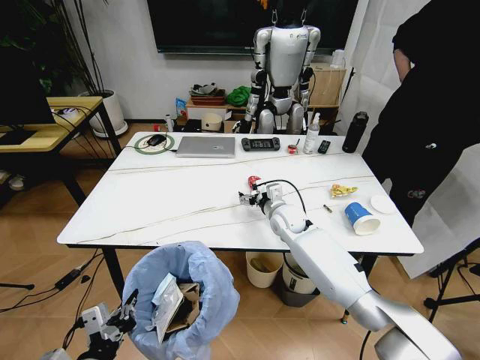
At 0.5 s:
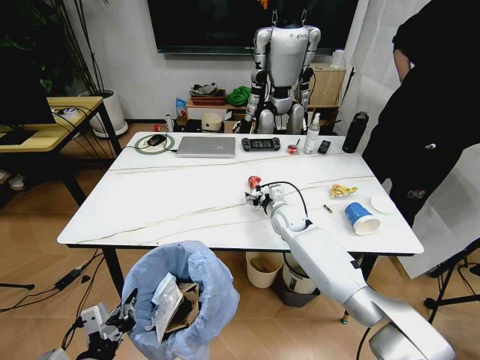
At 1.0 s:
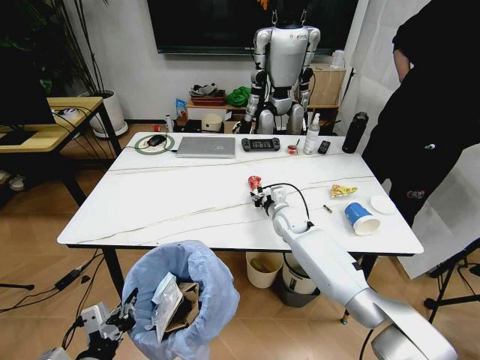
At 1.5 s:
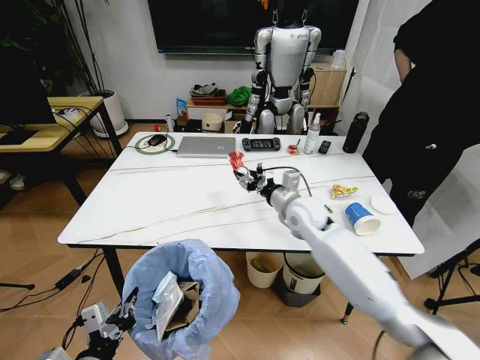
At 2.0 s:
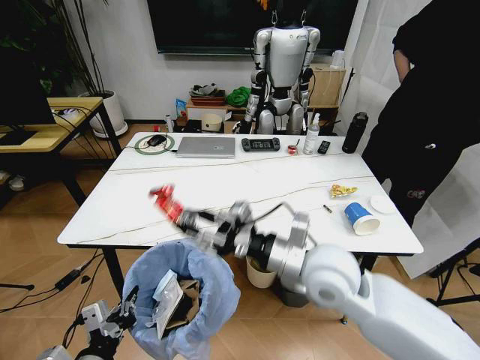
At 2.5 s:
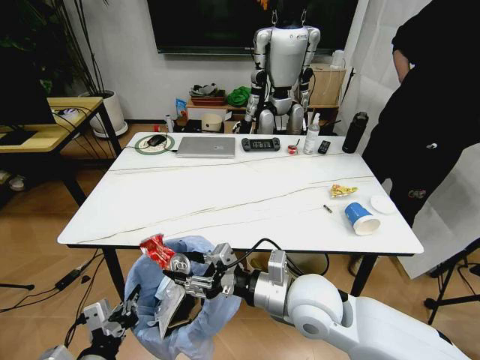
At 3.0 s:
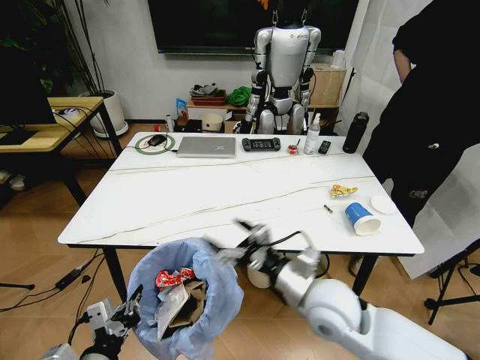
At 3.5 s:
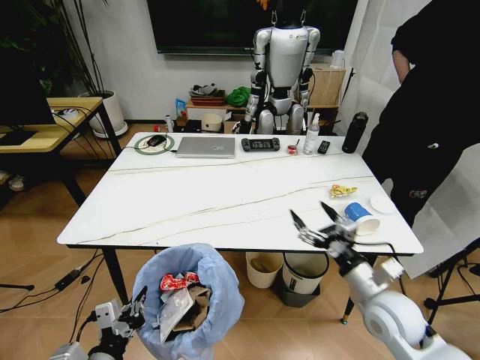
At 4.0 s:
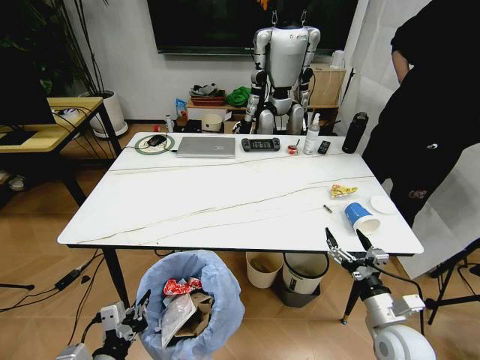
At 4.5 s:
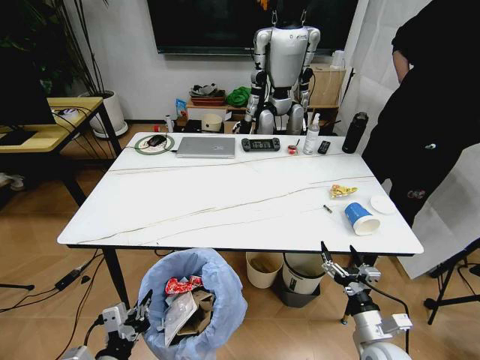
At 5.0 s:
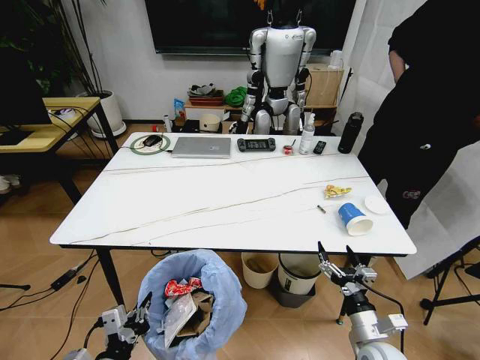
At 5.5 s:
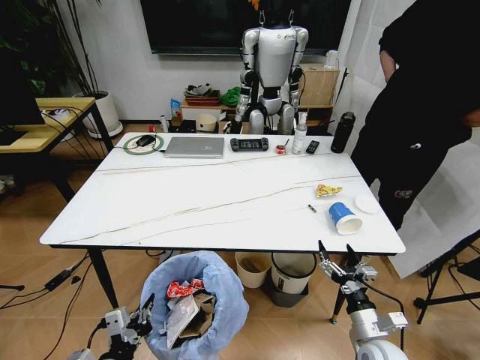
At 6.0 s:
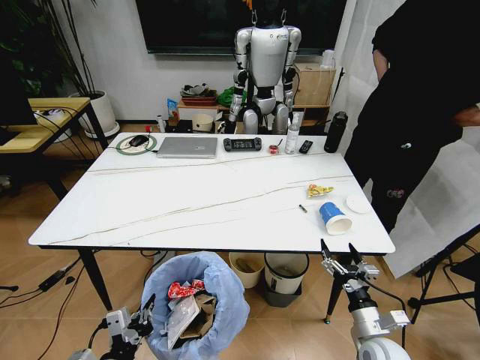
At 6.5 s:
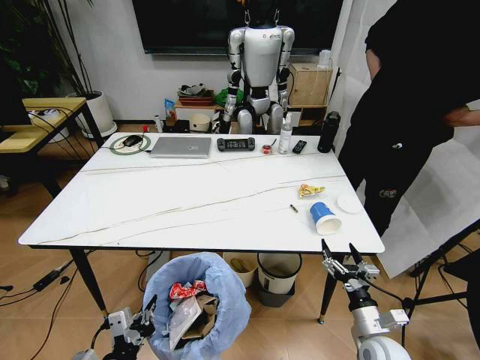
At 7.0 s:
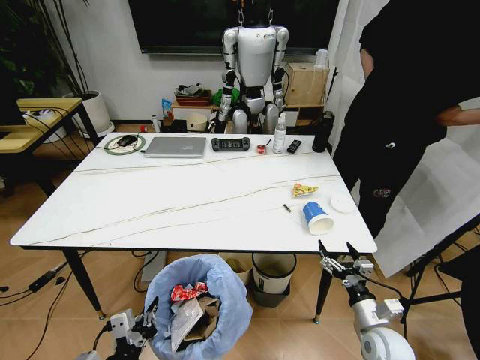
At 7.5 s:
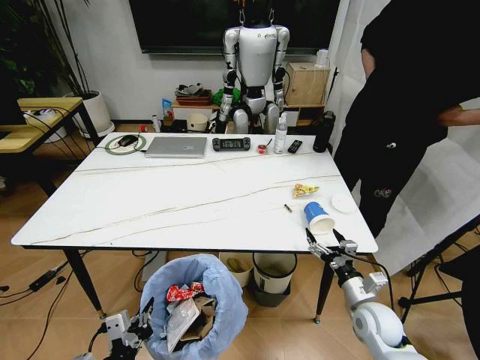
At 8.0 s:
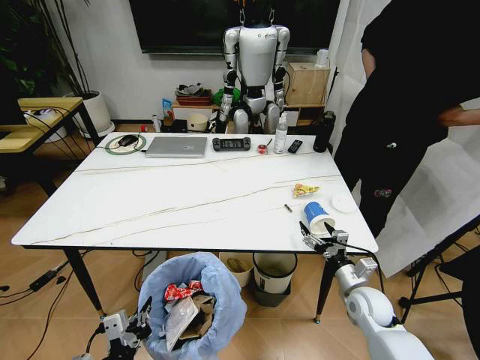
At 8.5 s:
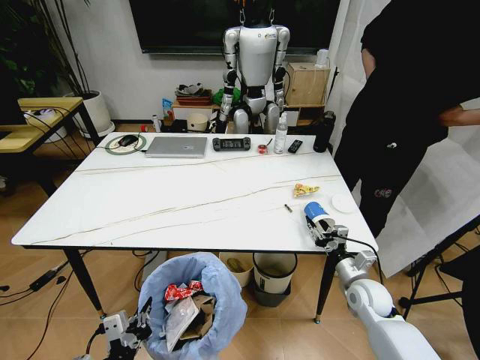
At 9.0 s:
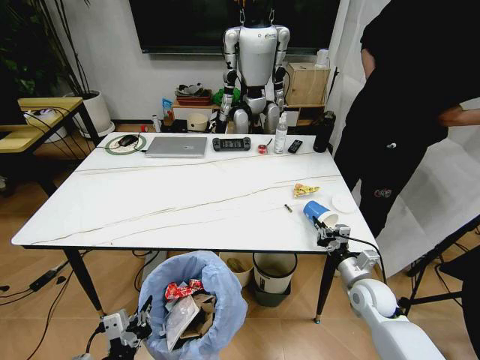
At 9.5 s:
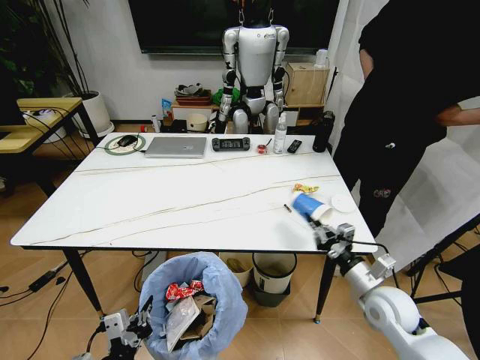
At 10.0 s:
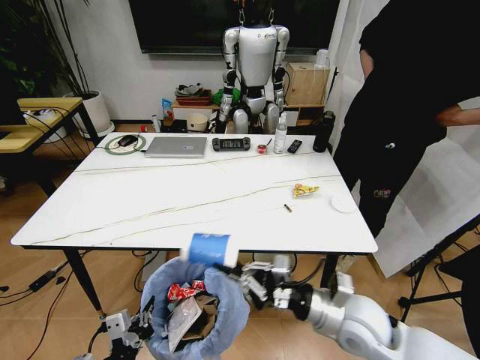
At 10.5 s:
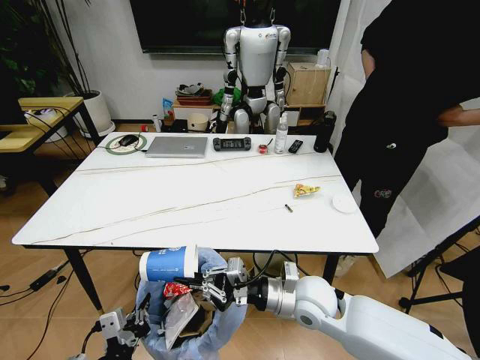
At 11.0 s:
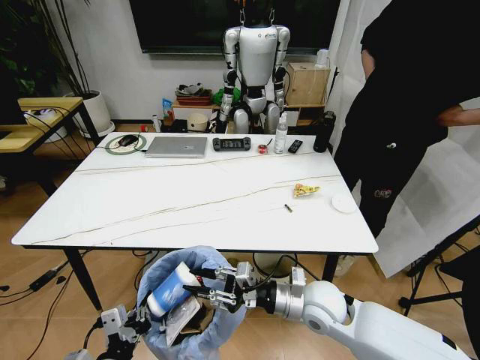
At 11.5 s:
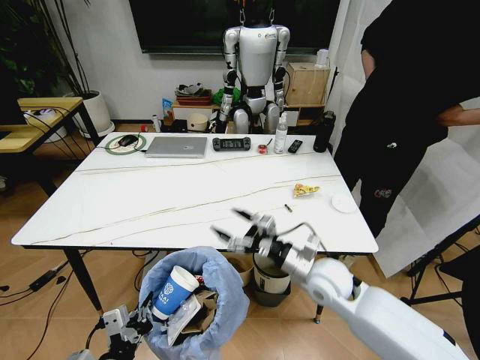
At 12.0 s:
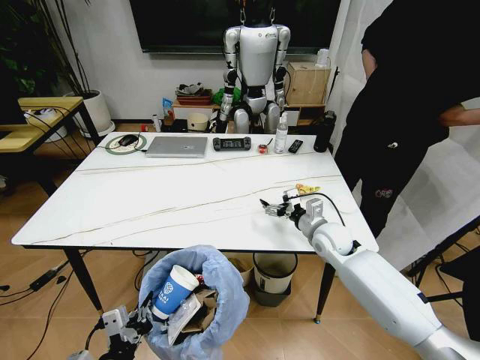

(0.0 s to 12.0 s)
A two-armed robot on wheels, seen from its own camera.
Task of the whole recording: Pick up the trash bin and place the trash from the table into it.
0.0 s - 2.0 s: The right gripper goes about 25 cm backward and upward, and closes up.
2.0 s - 4.0 s: The right gripper travels downward, to the right and backward by approximately 30 cm, and opens.
4.0 s - 6.0 s: The right gripper heads downward, covering roughly 5 cm.
6.0 s - 8.0 s: The right gripper heads forward, covering roughly 10 cm.
8.0 s - 10.0 s: The right gripper travels upward, to the left and backward by about 20 cm, and closes its fingers.
10.0 s - 12.0 s: The right gripper goes some 20 cm forward, and opens its fingers.

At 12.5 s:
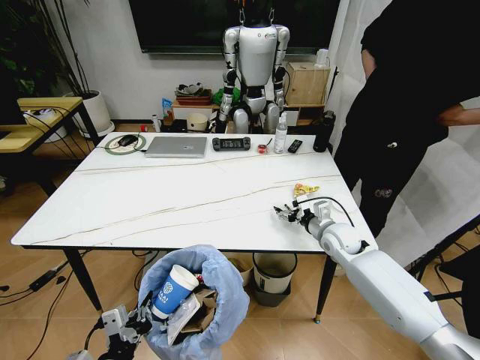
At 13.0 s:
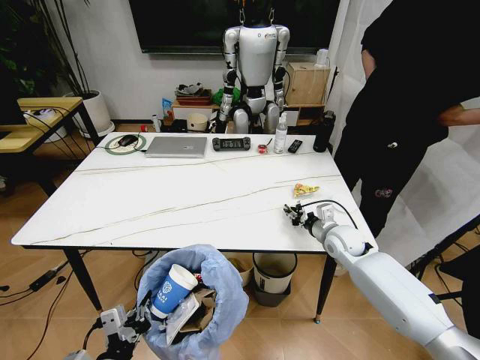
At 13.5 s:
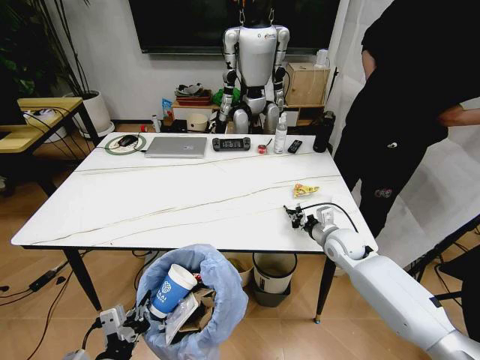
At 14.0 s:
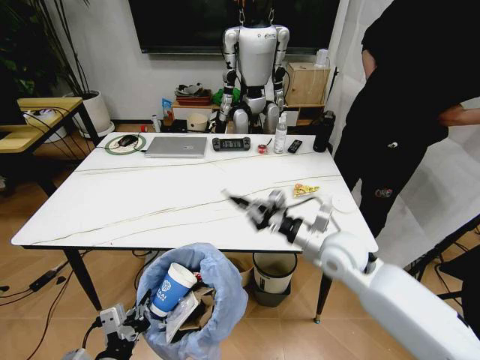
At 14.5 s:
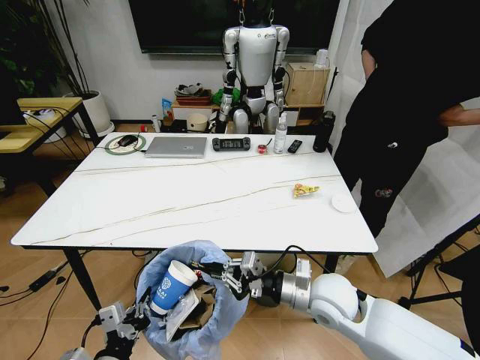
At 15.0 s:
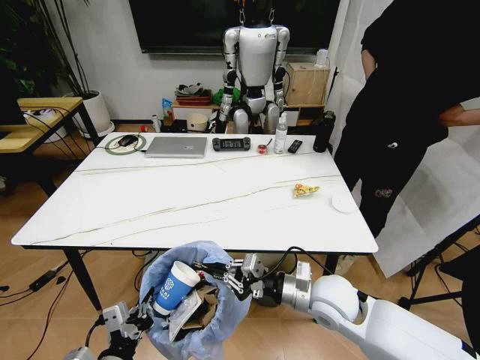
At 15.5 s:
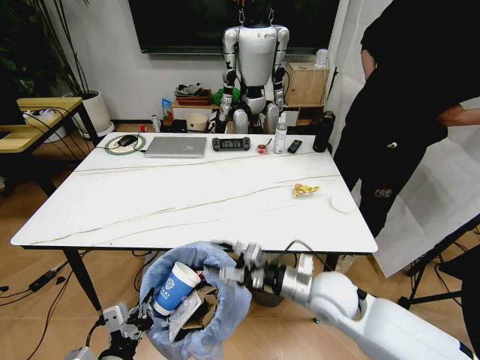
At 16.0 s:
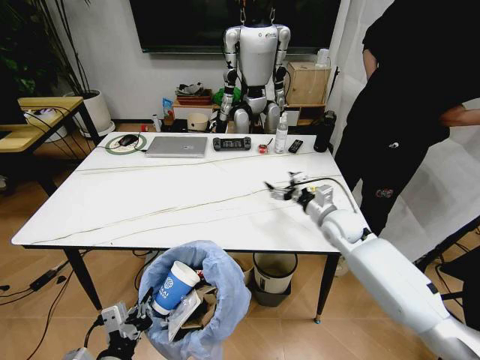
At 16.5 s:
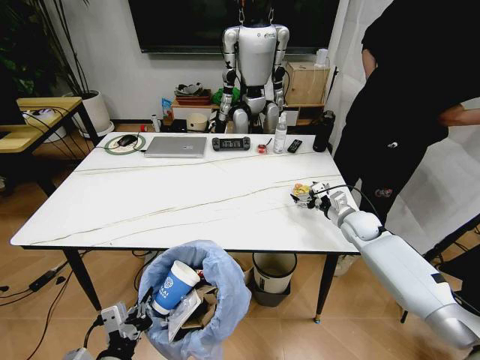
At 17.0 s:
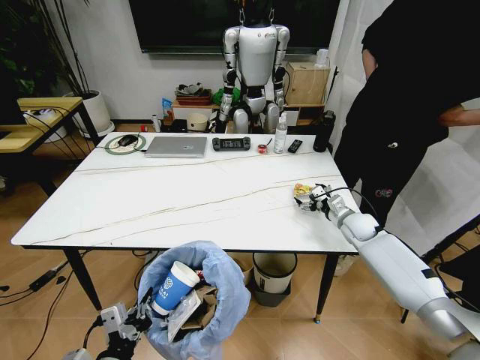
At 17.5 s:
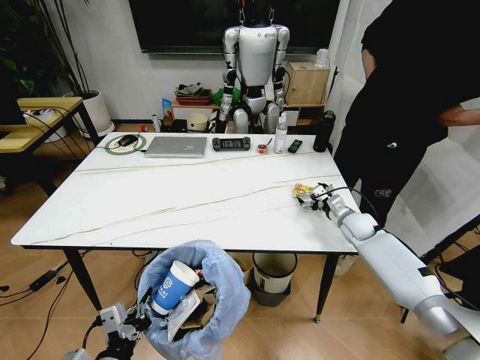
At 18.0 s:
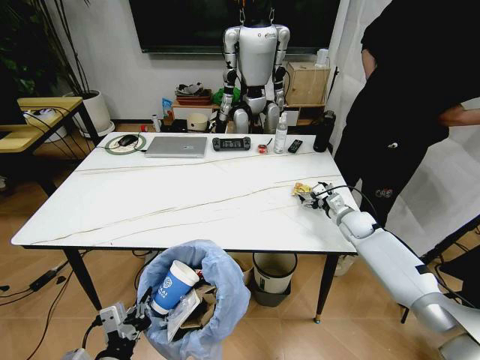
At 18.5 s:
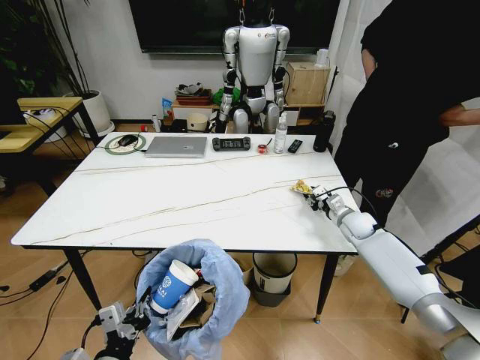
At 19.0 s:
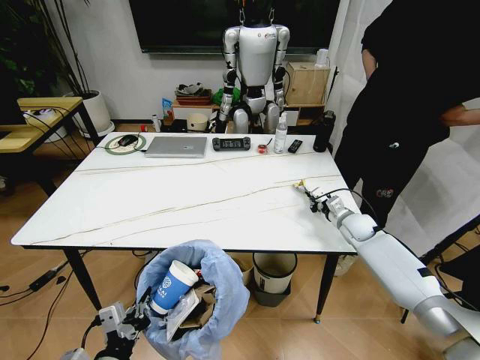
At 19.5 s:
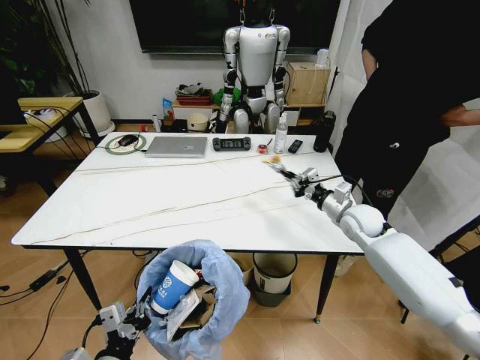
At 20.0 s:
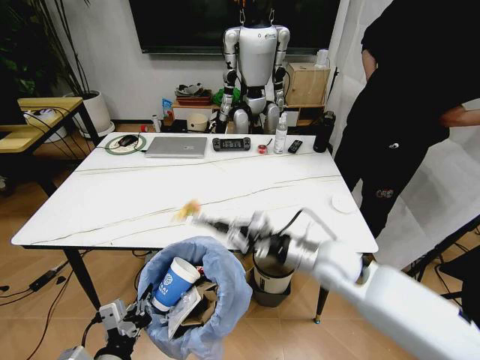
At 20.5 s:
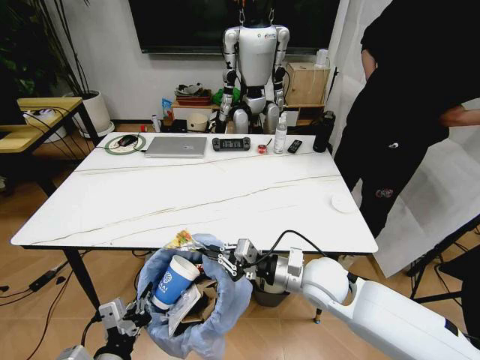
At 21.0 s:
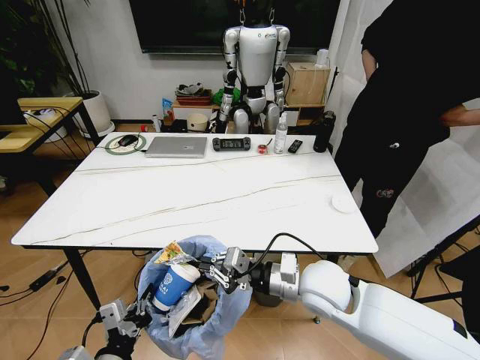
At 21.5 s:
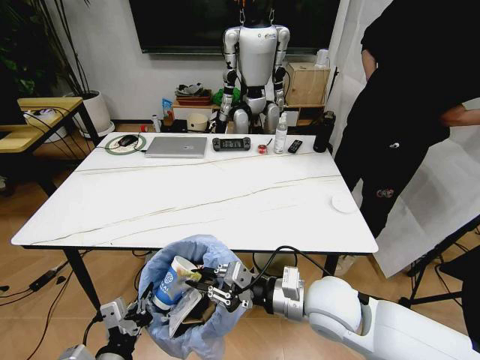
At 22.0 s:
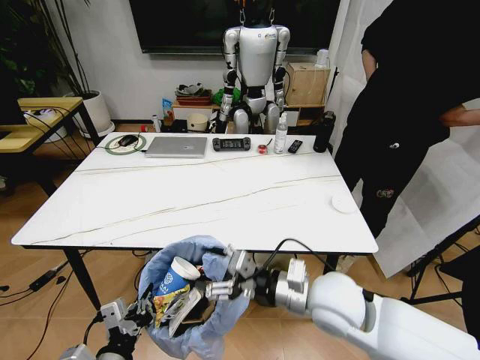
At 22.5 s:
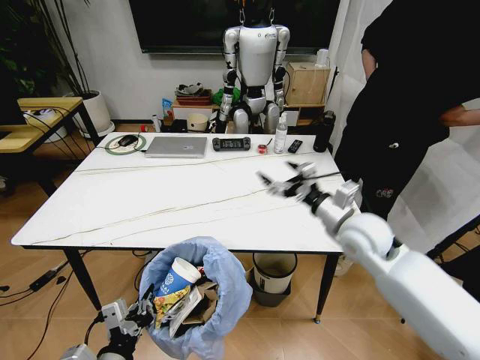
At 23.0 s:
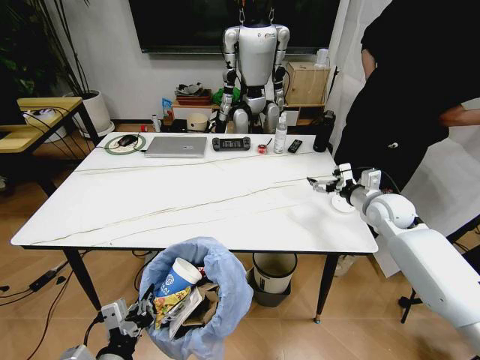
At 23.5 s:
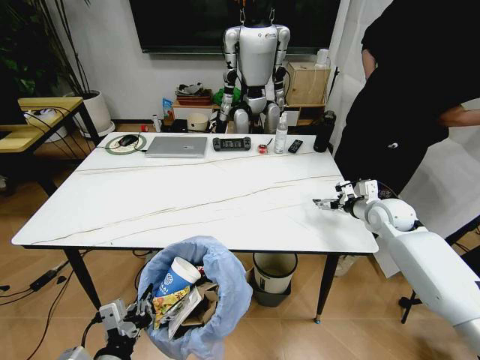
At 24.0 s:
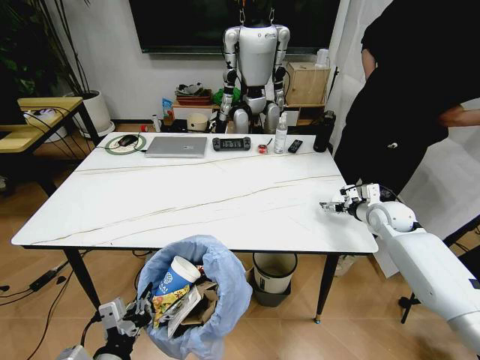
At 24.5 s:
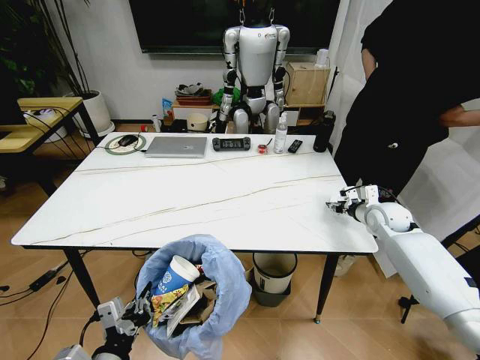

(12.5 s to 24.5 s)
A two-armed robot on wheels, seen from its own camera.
Task of the whole recording: Pick up the trash bin and place the trash from the table into it.
12.5 s - 14.5 s: The right gripper moves backward and to the left, some 20 cm, and closes its fingers.
14.5 s - 16.5 s: The right gripper goes about 25 cm forward and to the right, and opens.
16.5 s - 18.5 s: The right gripper closes.
18.5 s - 20.5 s: The right gripper travels backward and to the left by roughly 25 cm, and closes its fingers.
20.5 s - 22.5 s: The right gripper is displaced upward, to the right and forward by approximately 10 cm, and opens up.
22.5 s - 24.5 s: The right gripper shifts roughly 25 cm to the right, forward and downward, and closes its fingers.

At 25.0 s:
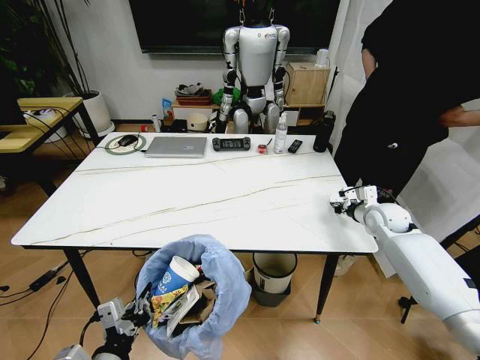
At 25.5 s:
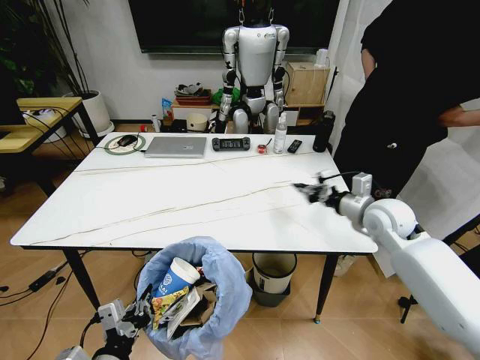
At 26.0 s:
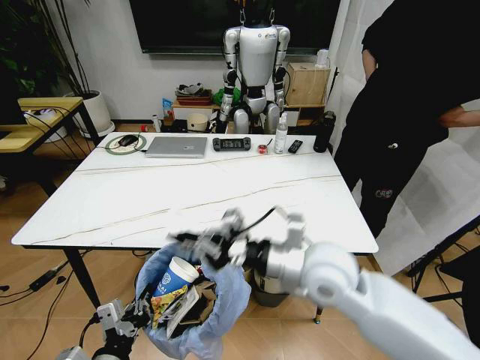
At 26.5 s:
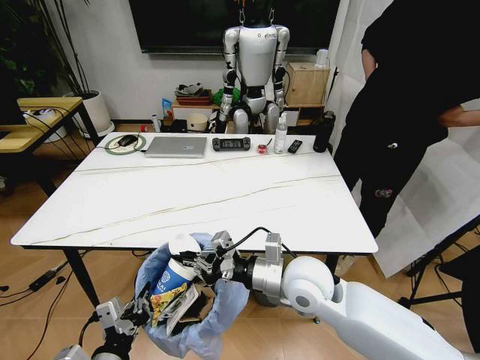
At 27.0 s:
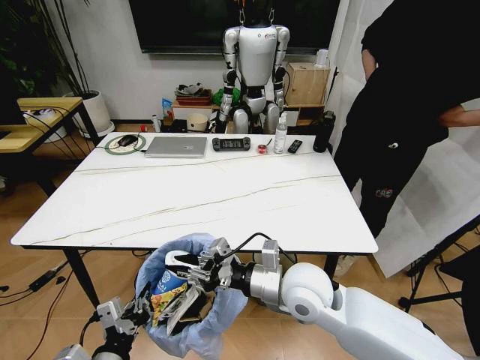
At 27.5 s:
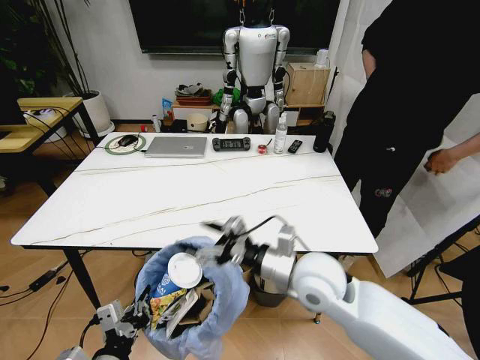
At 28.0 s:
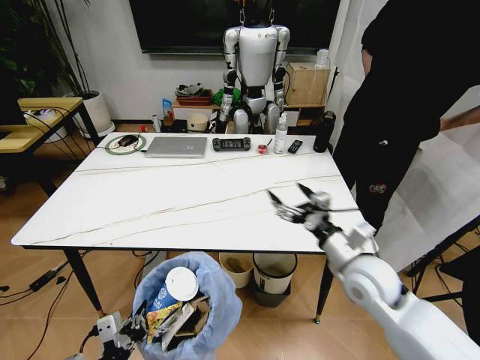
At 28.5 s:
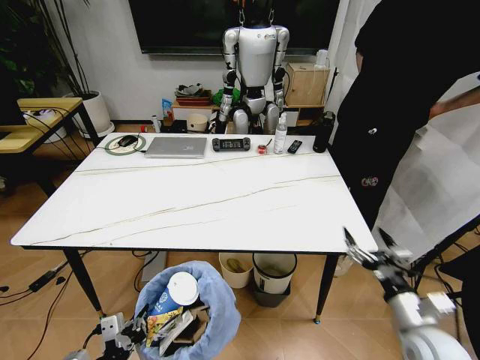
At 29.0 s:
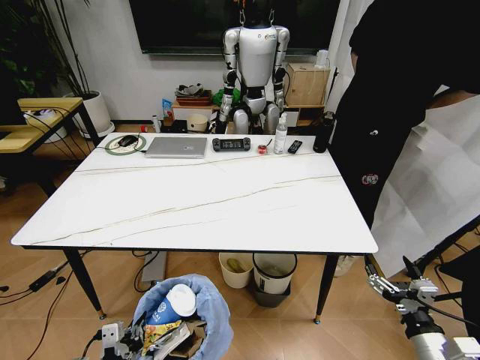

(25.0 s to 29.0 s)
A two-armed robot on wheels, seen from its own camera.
Task of the whole recording: Pick up the trash bin and place the trash from the table into it.
25.0 s - 27.0 s: The right gripper moves to the left and backward, approximately 35 cm.
27.0 s - 29.0 s: The right gripper goes about 35 cm to the right, backward and downward, and opens up. Meanwhile the left gripper is displaced downward by about 10 cm.
